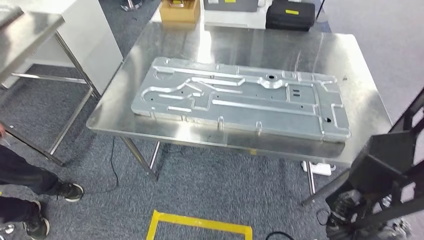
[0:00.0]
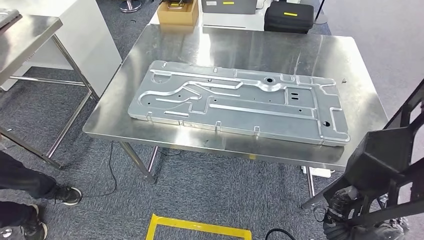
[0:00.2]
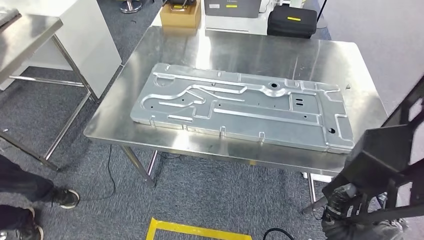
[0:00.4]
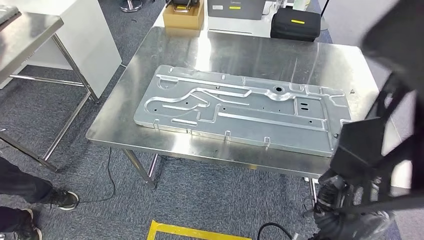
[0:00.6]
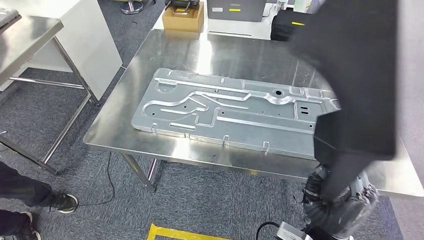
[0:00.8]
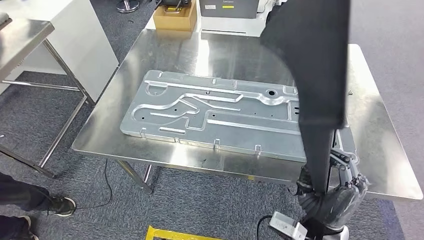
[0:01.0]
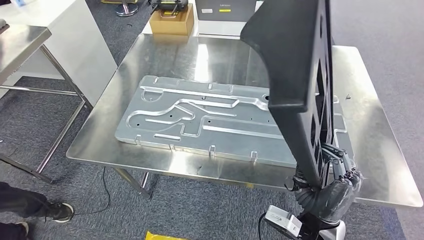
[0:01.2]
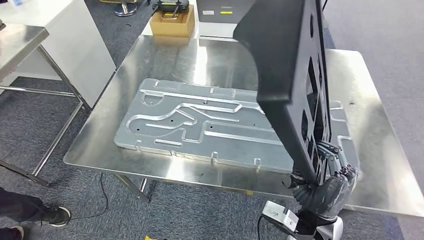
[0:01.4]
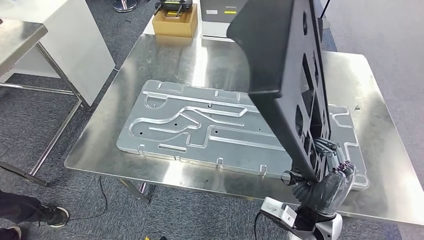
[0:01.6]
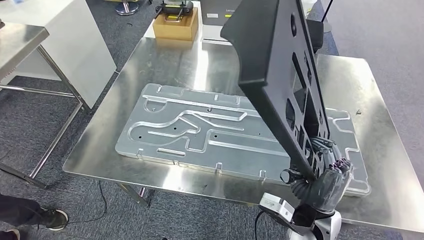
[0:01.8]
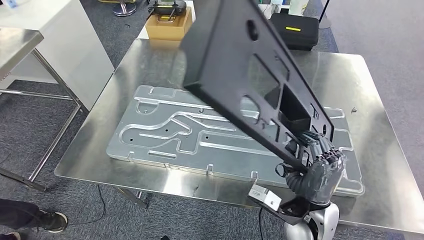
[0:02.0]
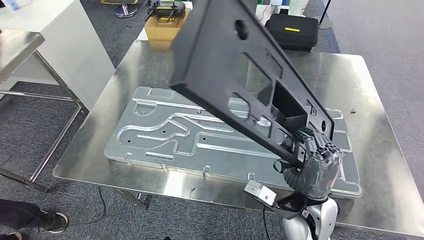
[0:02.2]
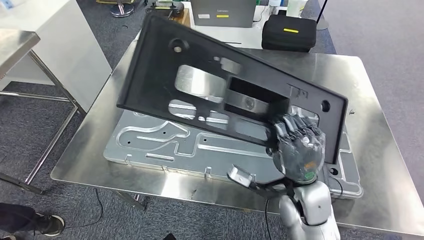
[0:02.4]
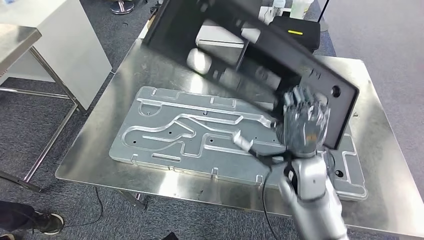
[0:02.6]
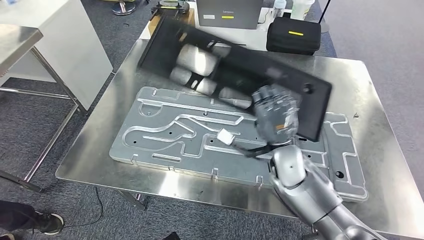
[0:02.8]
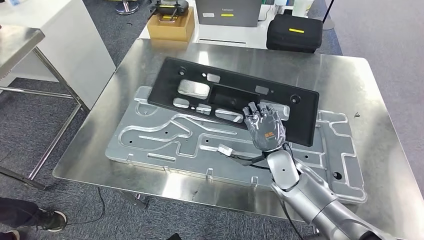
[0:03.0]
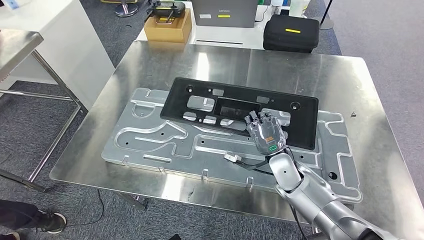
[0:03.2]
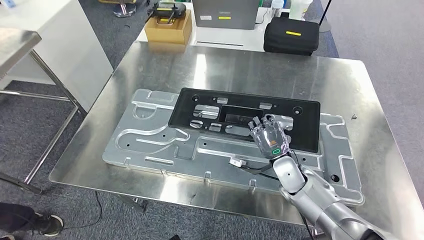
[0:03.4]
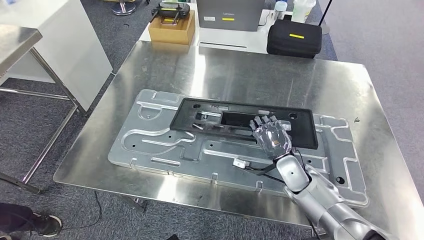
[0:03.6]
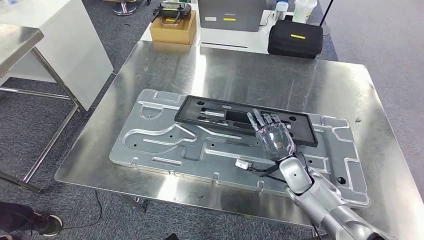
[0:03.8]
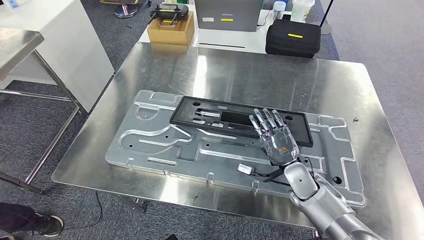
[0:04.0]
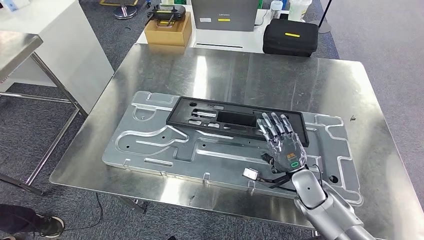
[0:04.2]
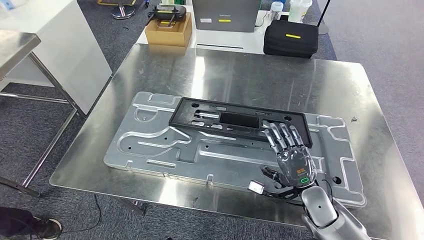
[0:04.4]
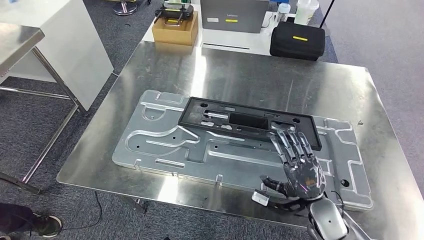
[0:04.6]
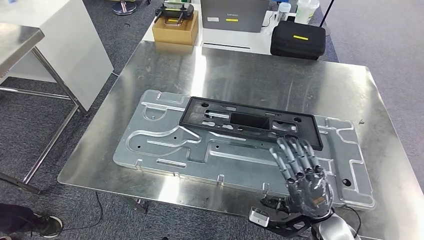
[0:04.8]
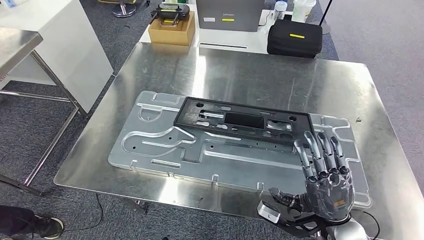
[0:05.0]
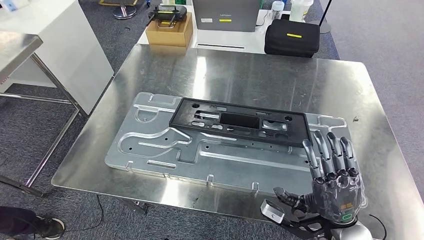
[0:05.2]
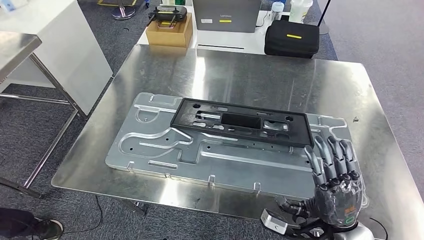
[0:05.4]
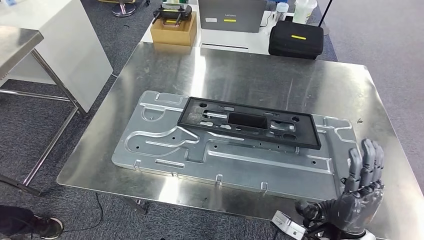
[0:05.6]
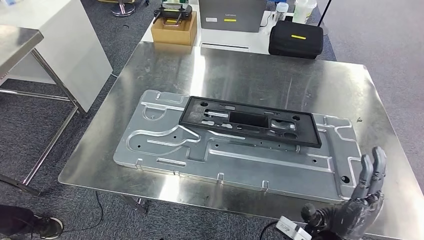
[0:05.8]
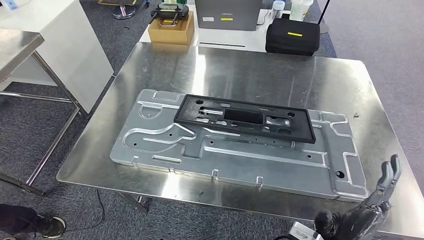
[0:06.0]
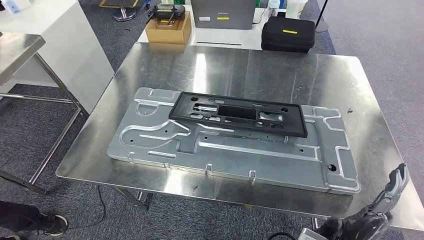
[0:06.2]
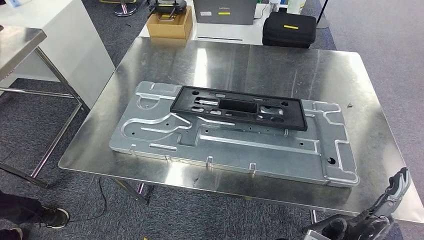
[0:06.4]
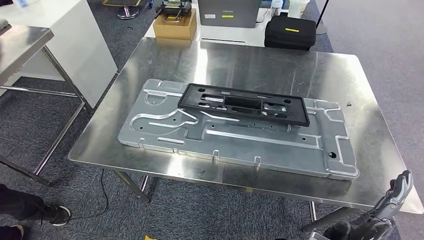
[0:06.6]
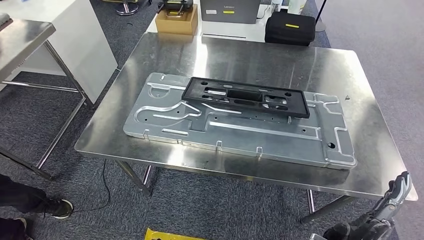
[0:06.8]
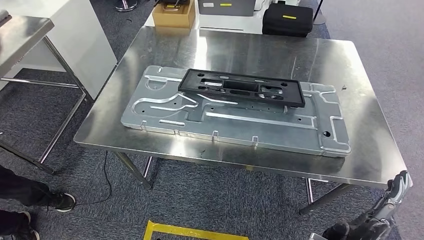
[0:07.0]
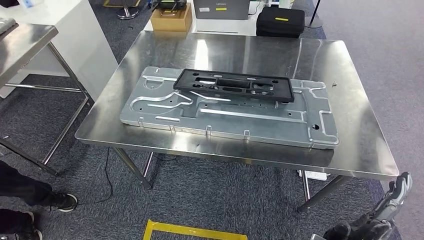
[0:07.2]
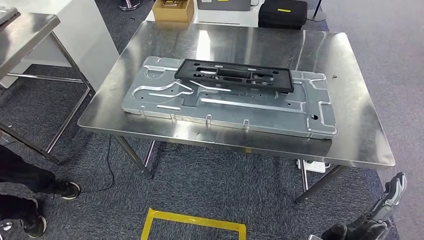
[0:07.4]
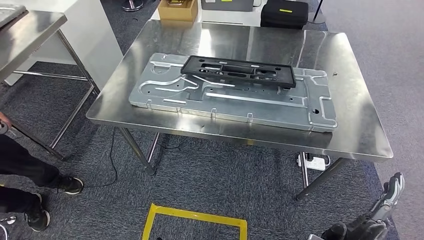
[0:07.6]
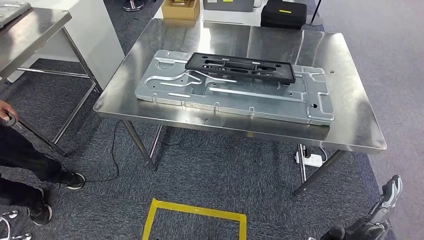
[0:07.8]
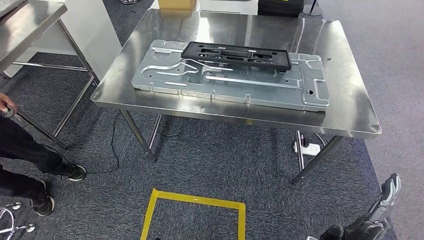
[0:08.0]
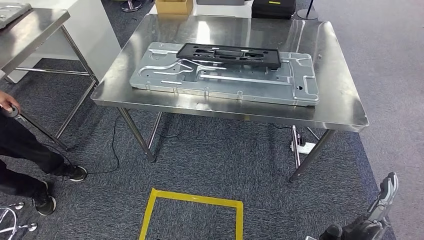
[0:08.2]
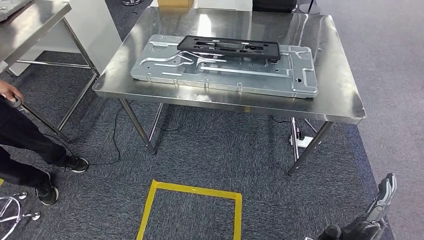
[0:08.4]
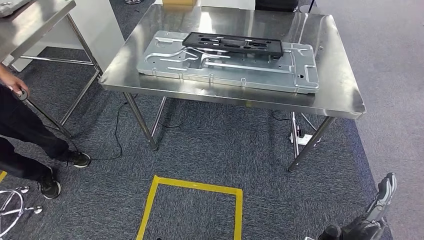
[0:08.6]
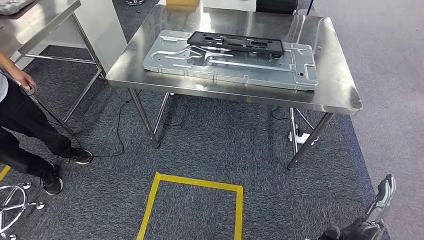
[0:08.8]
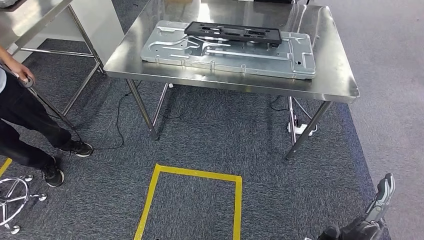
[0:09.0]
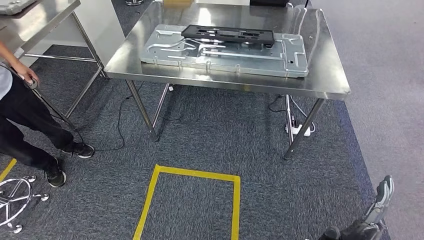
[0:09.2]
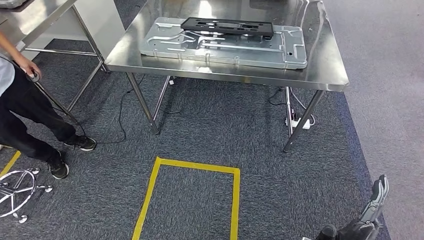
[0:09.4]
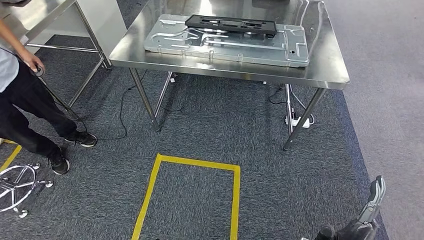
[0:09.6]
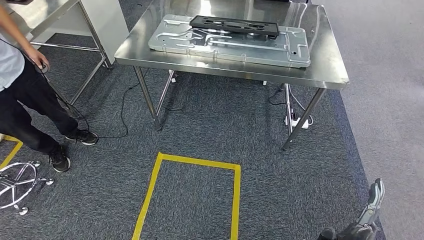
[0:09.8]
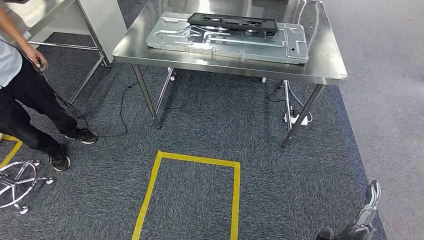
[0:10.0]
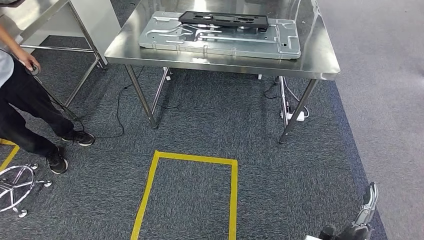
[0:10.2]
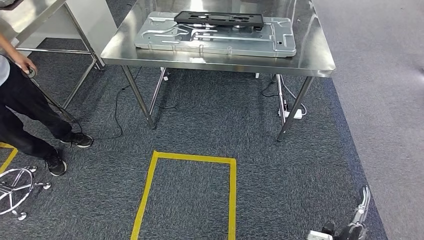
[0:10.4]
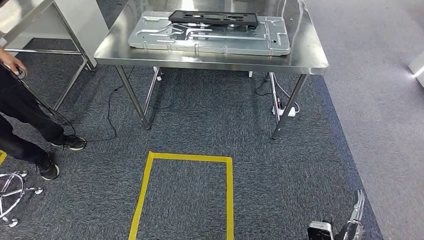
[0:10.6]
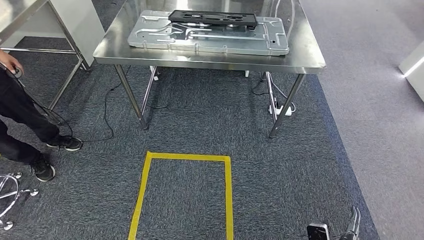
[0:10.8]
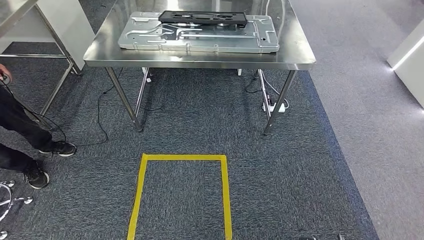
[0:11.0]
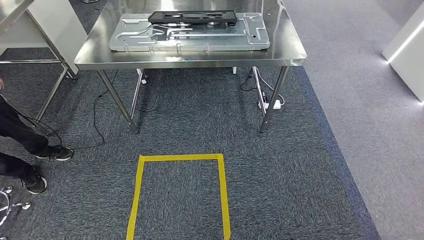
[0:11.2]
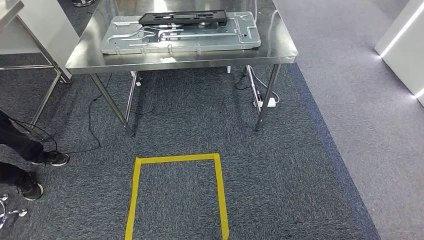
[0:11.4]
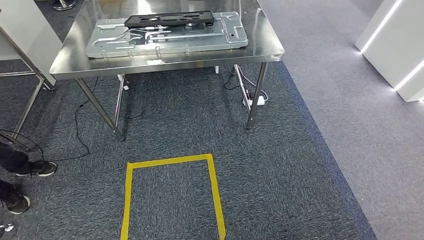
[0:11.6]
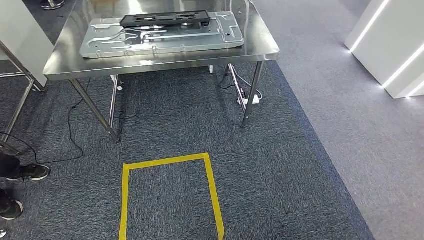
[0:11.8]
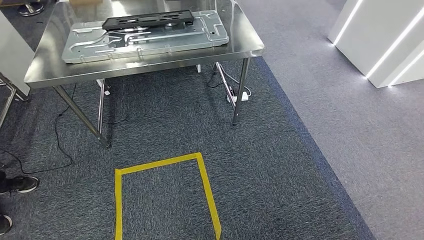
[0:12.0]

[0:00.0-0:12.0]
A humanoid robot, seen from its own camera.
Step, 0:00.0 to 0:09.0: Insert the large material into the corresponding hole on the workbench.

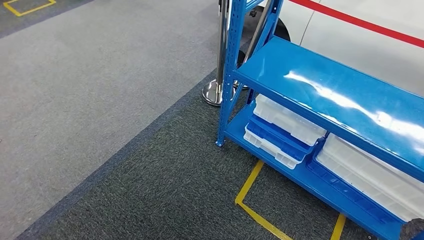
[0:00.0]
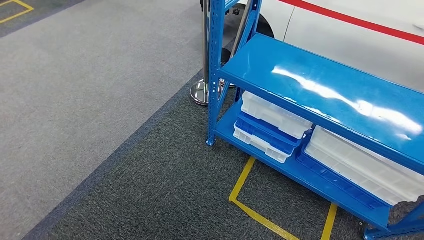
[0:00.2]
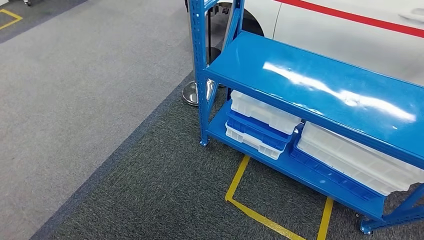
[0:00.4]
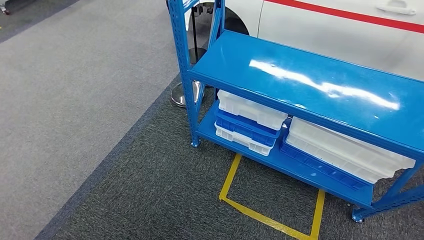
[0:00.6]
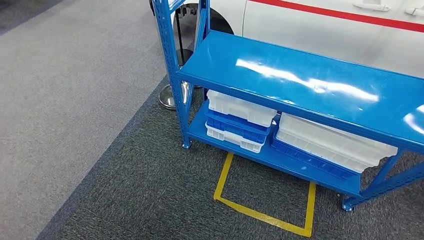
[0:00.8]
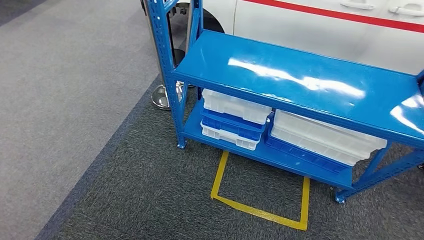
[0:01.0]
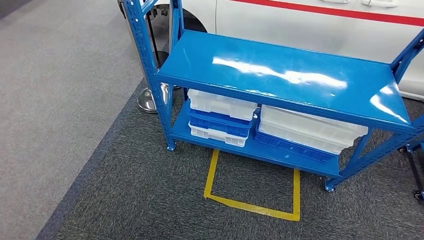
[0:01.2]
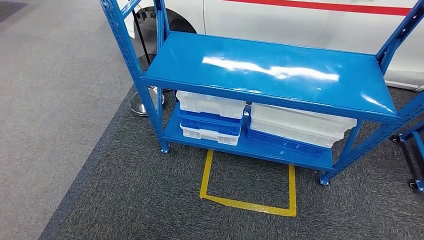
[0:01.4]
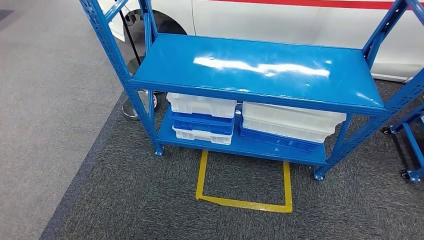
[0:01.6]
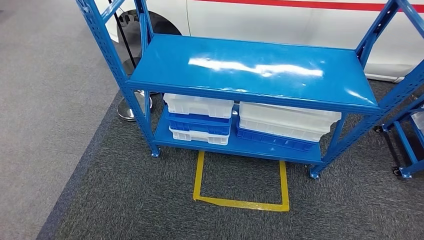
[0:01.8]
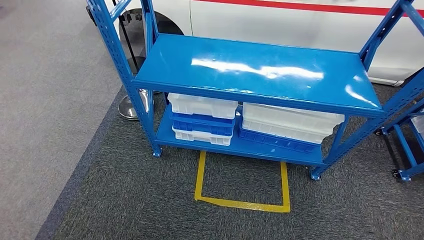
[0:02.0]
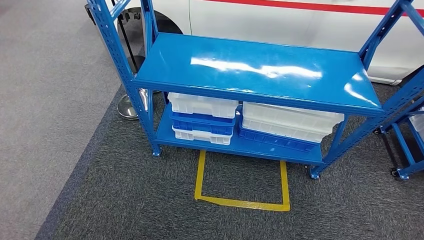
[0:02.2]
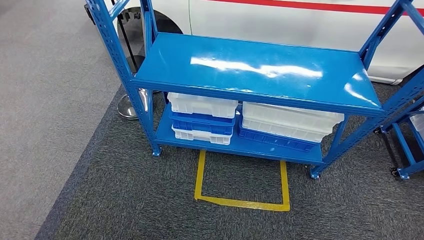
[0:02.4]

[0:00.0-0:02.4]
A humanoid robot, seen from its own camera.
Step, 0:00.0 to 0:02.4: Move to the initial position of the shelf.
